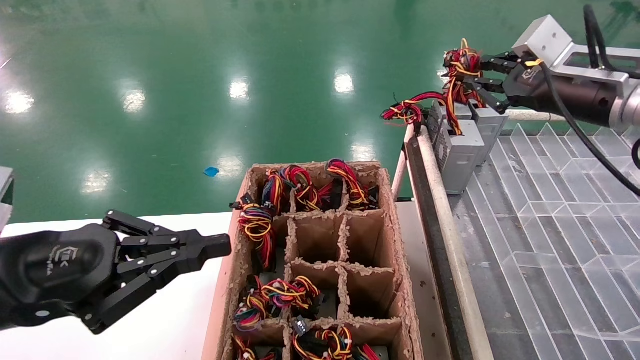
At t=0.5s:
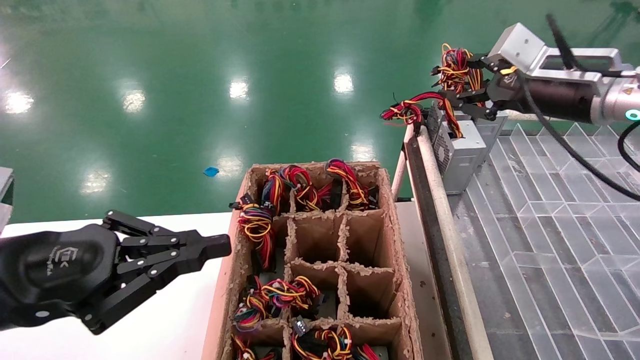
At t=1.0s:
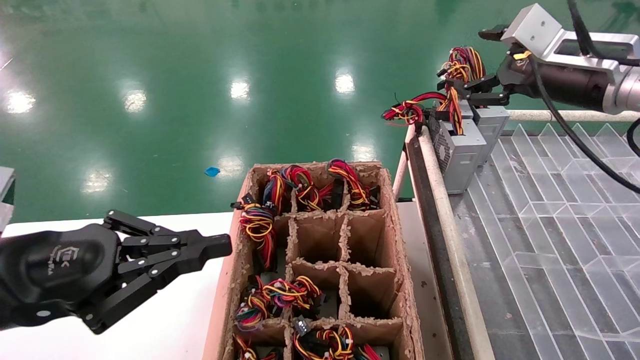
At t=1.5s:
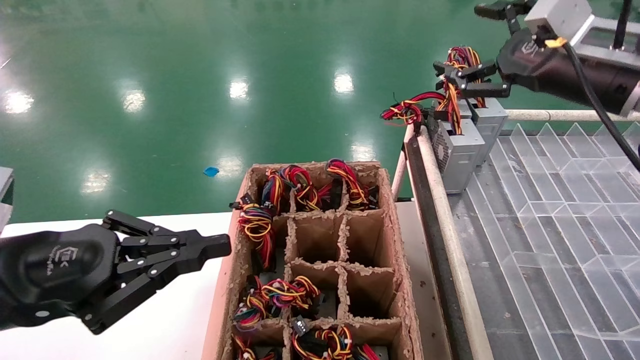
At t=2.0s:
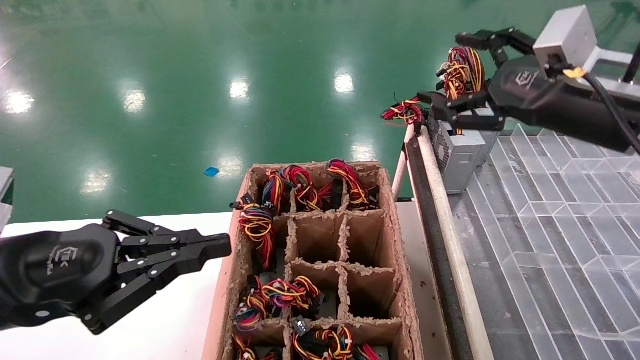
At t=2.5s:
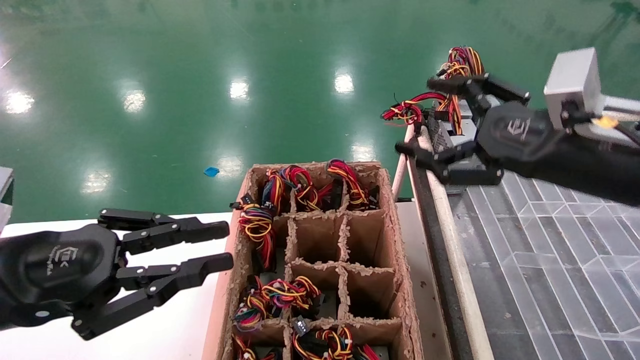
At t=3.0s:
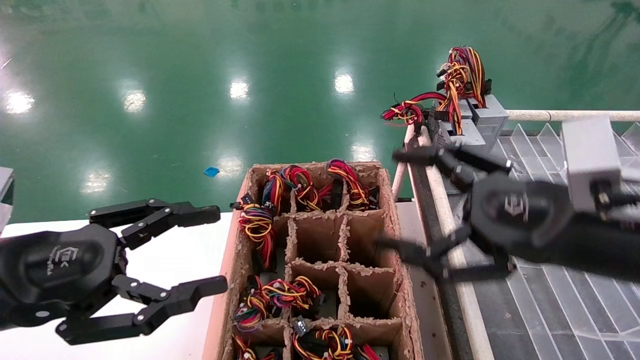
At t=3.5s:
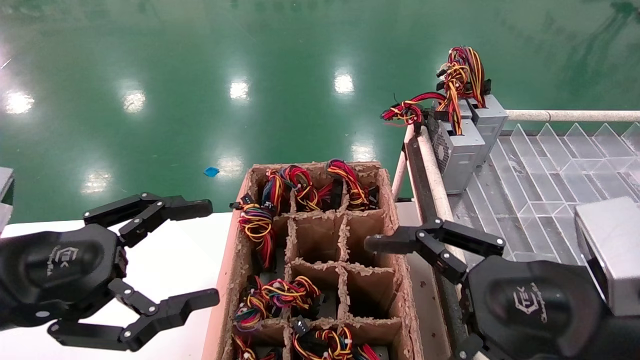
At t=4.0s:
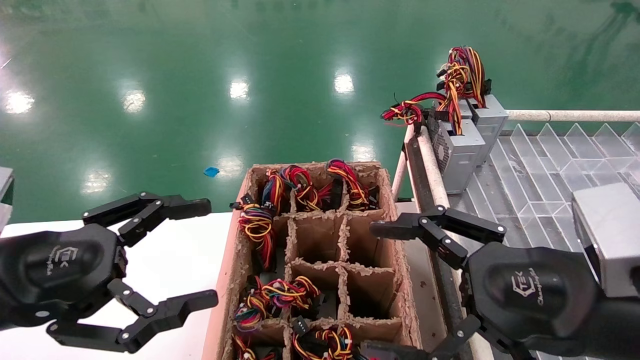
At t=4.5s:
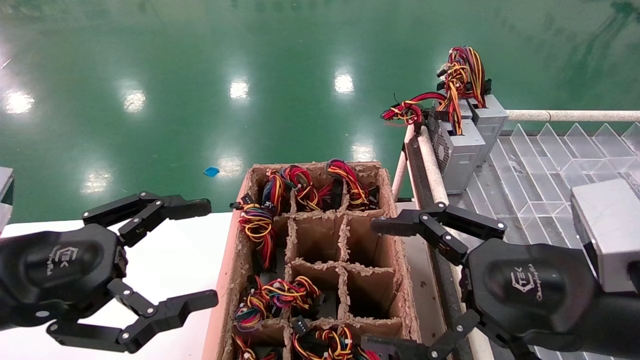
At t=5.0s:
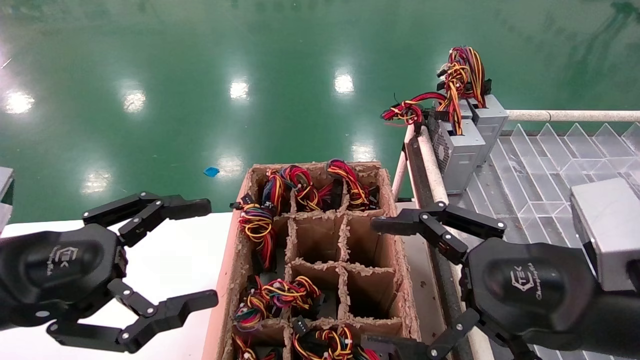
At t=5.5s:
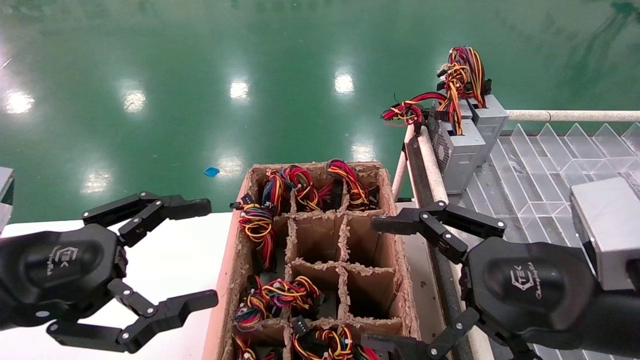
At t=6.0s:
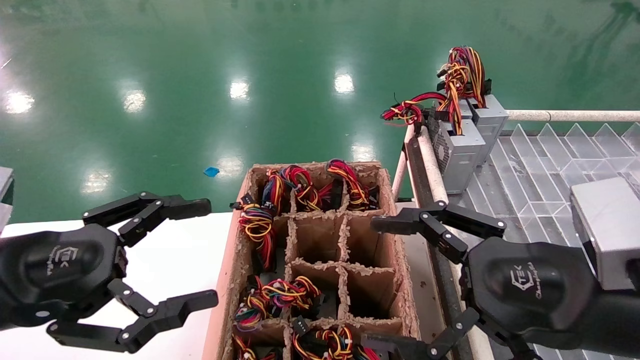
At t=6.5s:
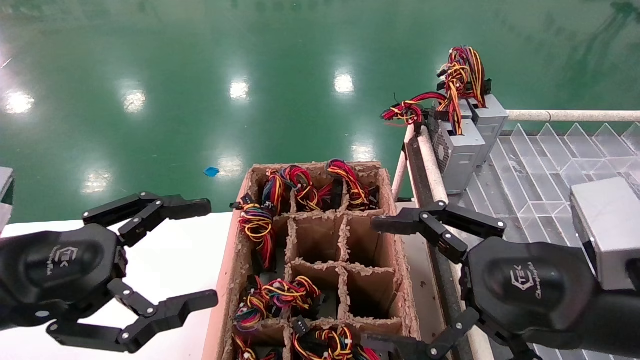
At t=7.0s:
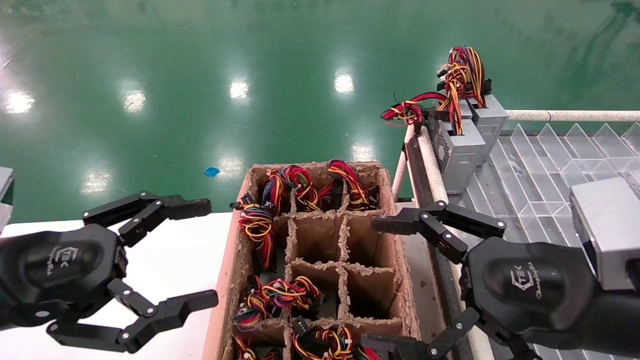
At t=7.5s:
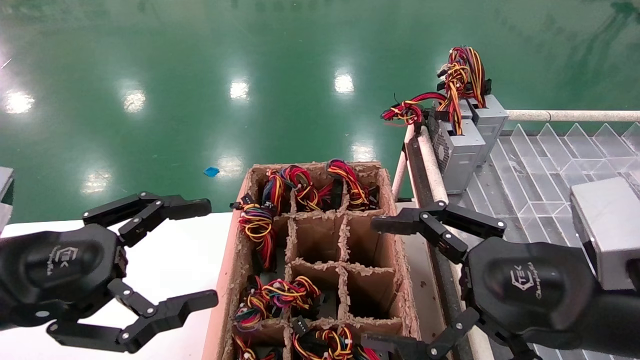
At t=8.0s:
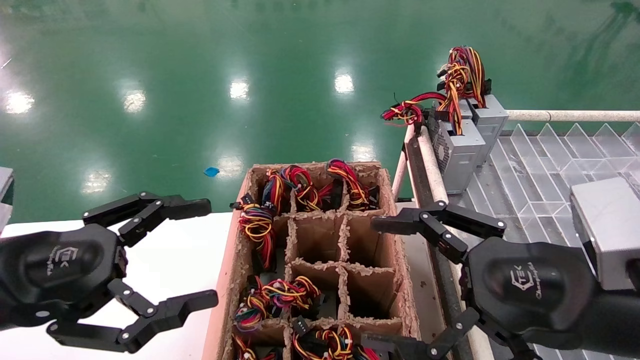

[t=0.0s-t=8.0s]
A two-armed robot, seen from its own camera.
t=0.0s to t=2.0s: The right gripper travels backward by about 5 cm, and opens.
t=2.0s to t=4.0s: The left gripper opens up, while the right gripper shifts approximately 20 cm backward, downward and to the left.
t=4.0s to t=8.0s: Both grippers stay put.
